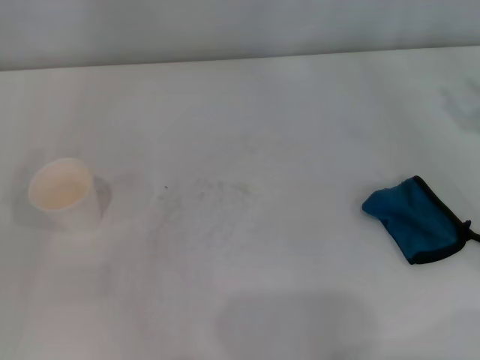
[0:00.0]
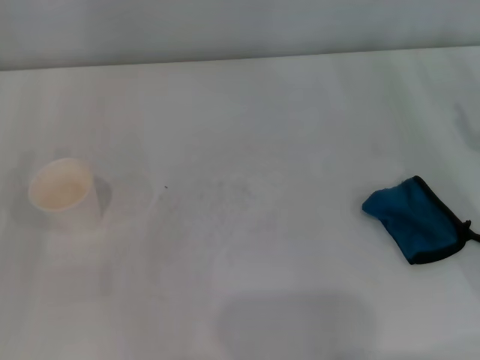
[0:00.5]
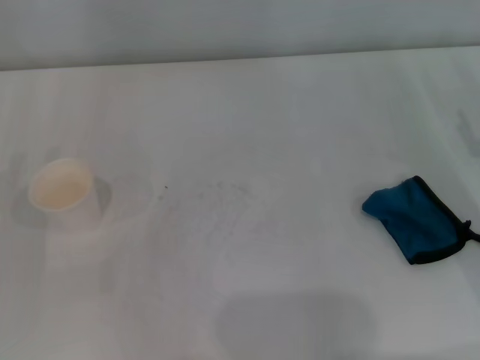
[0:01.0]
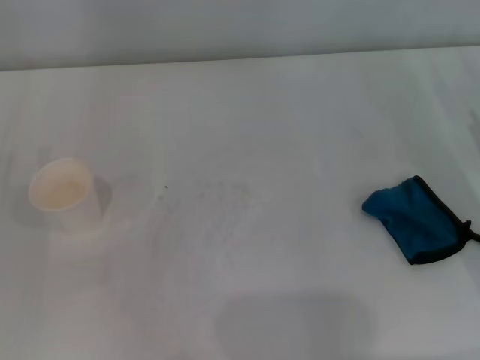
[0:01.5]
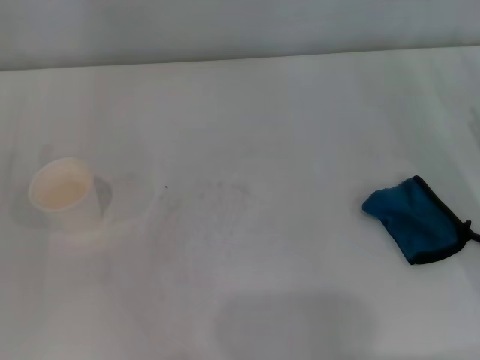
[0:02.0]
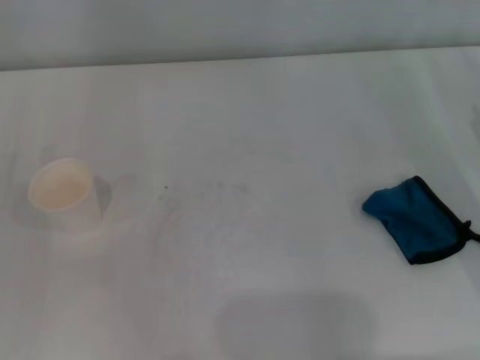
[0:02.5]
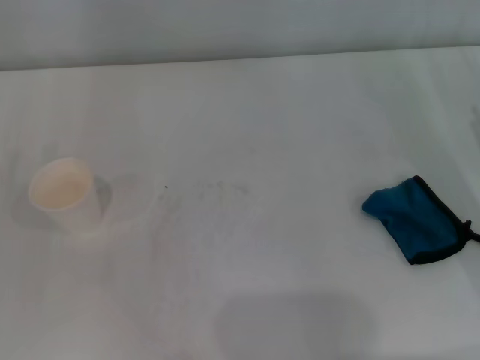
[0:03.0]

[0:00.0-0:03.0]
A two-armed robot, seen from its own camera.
0:01.5 to 0:03.0: Both grippers stay put.

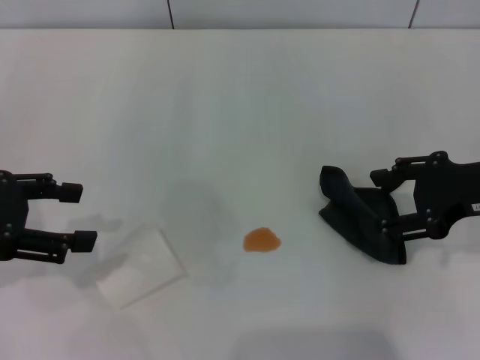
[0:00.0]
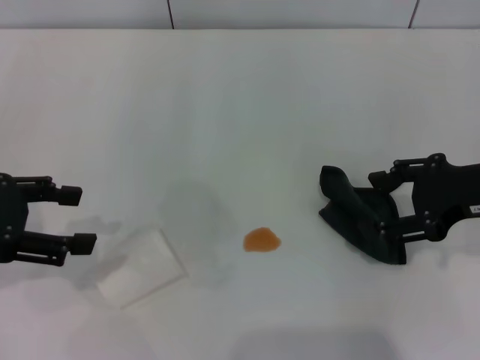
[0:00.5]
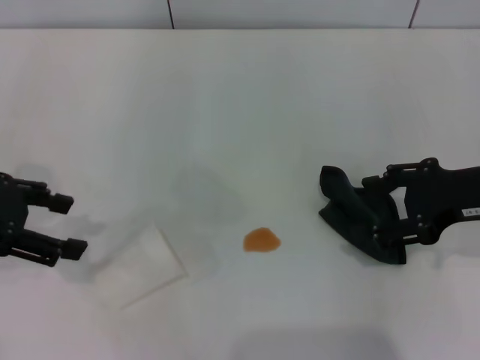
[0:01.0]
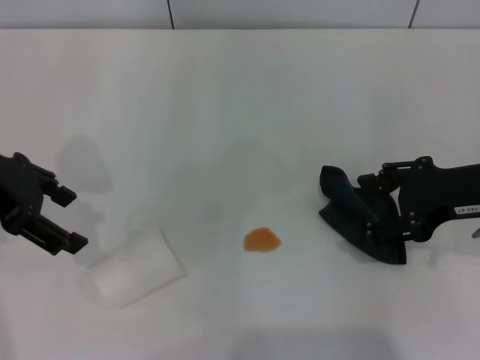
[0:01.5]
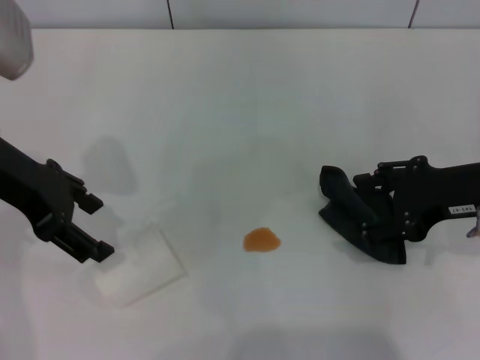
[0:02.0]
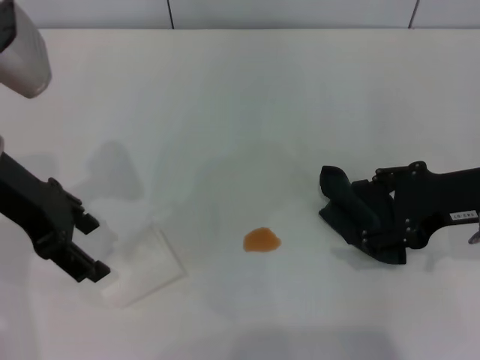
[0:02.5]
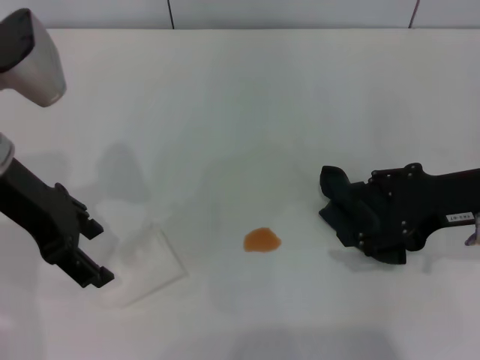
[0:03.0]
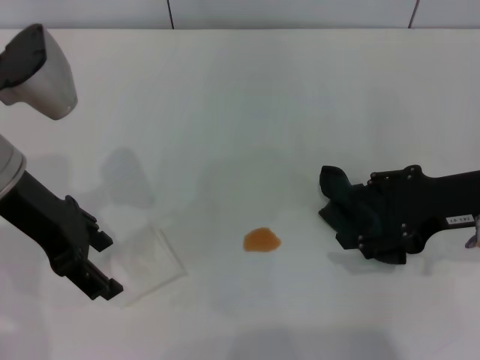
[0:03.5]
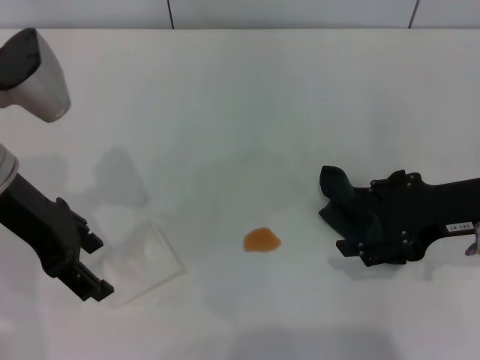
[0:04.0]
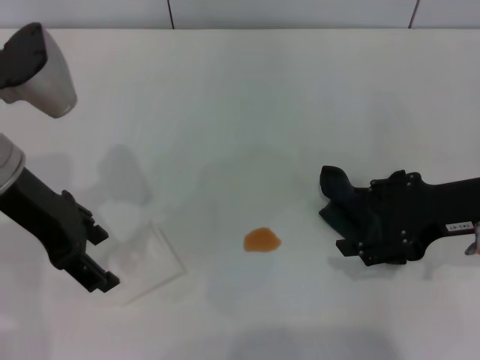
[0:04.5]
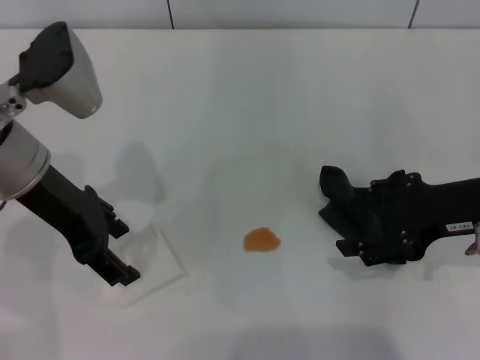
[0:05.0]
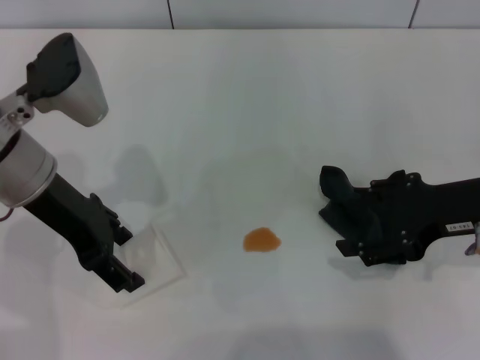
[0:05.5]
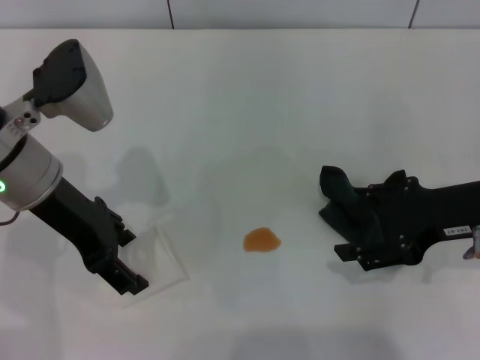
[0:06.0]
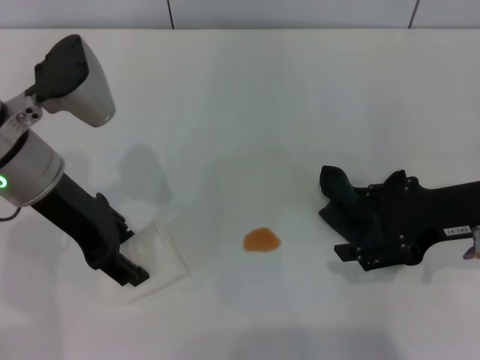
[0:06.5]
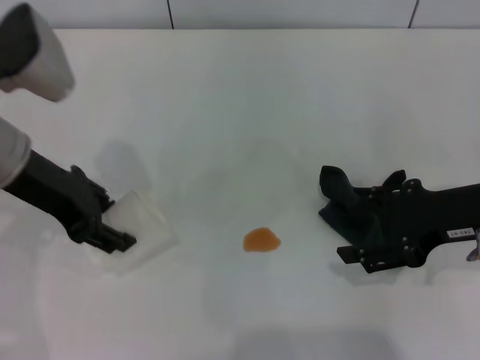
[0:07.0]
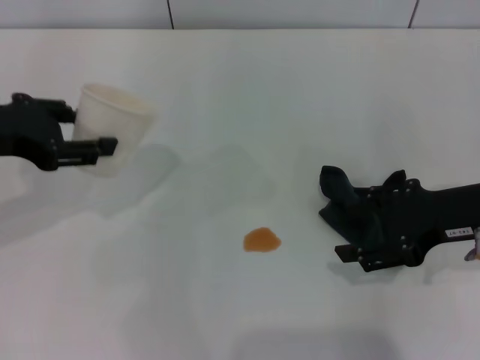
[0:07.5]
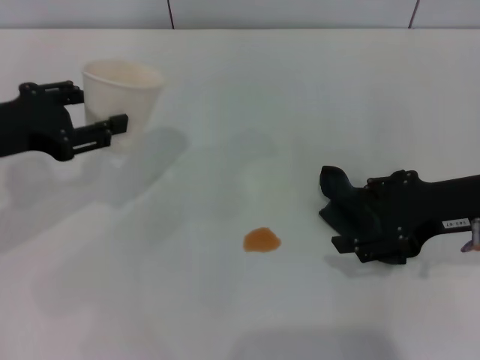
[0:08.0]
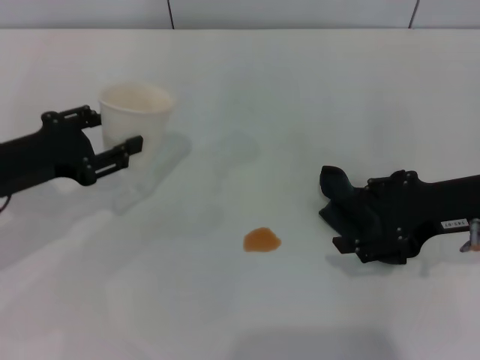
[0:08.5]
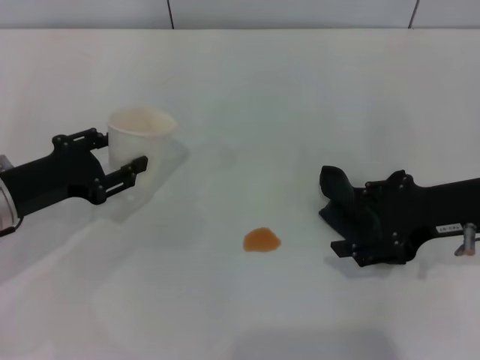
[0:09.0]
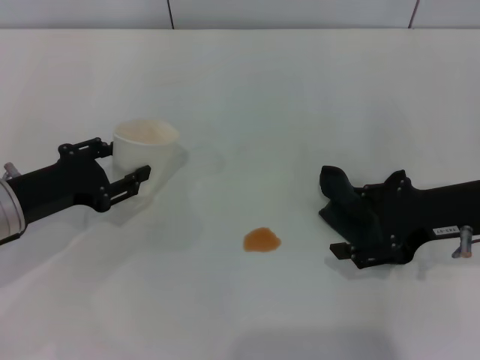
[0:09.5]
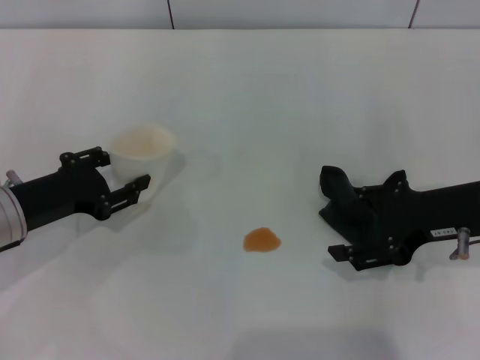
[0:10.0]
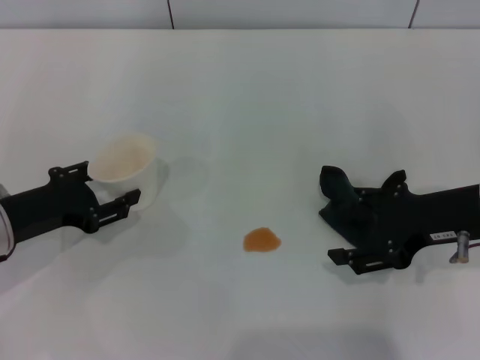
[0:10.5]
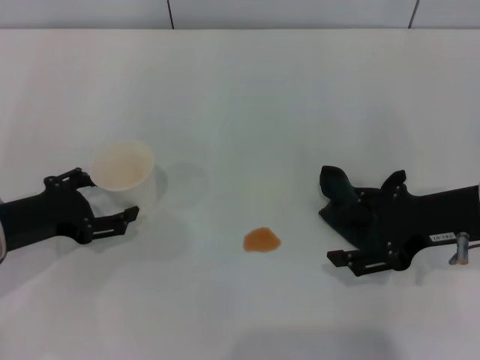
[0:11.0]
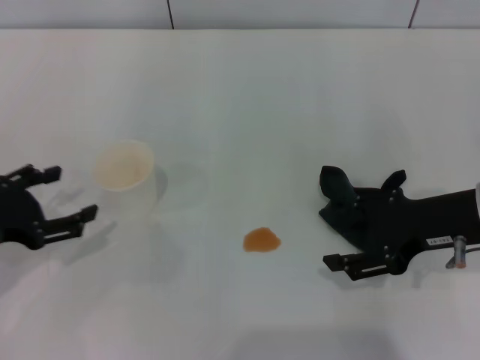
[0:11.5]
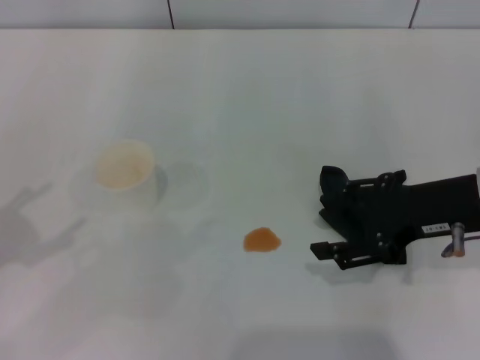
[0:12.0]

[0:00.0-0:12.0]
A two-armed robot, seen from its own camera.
Step, 0:00.0 to 0:06.5: Grasp the paper cup with the left gripper.
Step, 0:07.0 to 0:10.5: Stand the paper cup upright with the left gripper.
0:00.0 to 0:02.0: The left gripper moves to the right and forward, some 10 cm.
0:02.0 to 0:04.0: The grippers stay close to where they were, moving slightly.
0:04.0 to 0:06.0: There are only small adjustments of the grippers.
0:06.0 to 0:08.0: The left gripper is displaced to the left by approximately 10 cm, and closes.
0:08.0 to 0:10.0: The left gripper is displaced downward by approximately 10 cm.
0:10.0 to 0:12.0: The left gripper moves upward, to the left and backward, approximately 20 cm, and opens up.

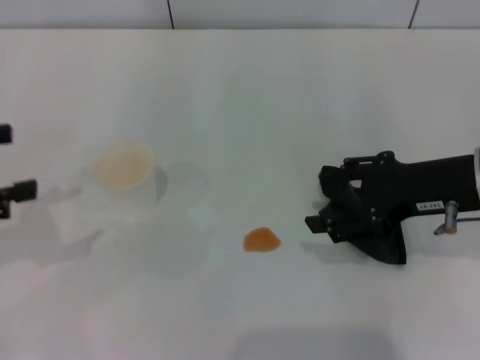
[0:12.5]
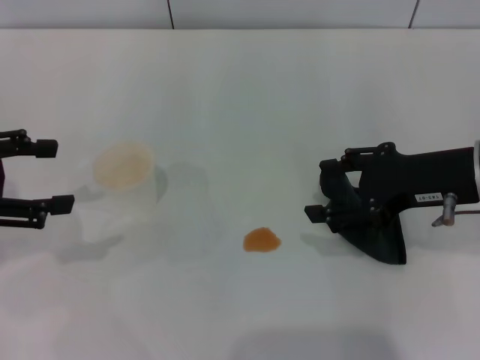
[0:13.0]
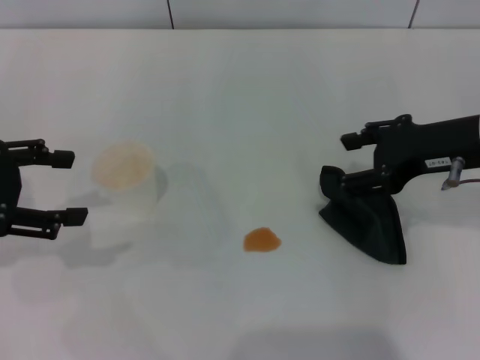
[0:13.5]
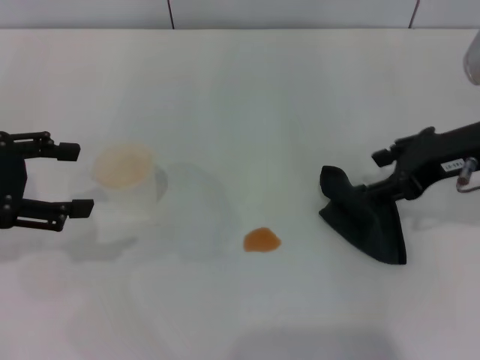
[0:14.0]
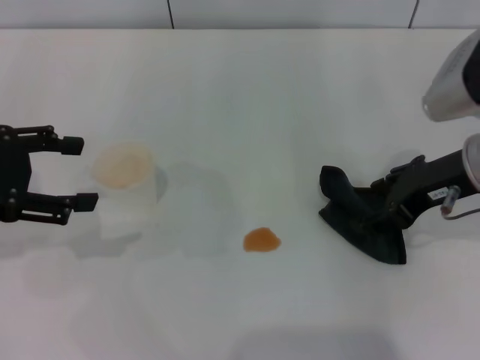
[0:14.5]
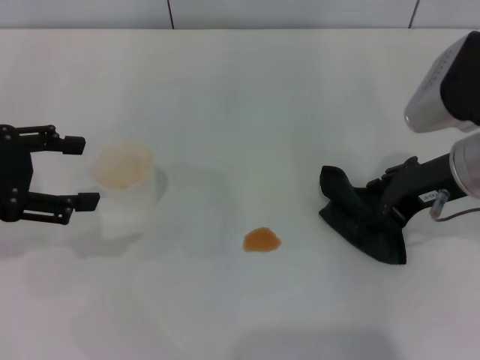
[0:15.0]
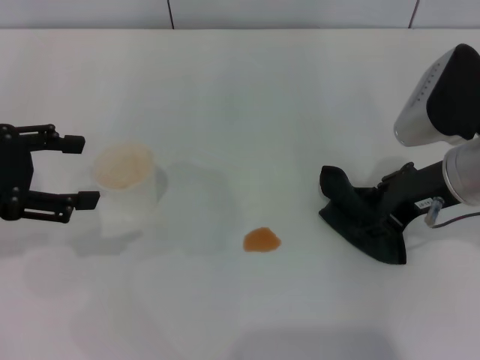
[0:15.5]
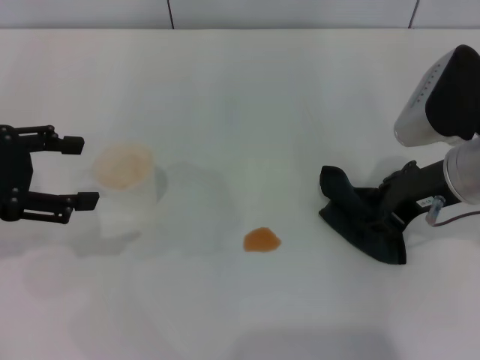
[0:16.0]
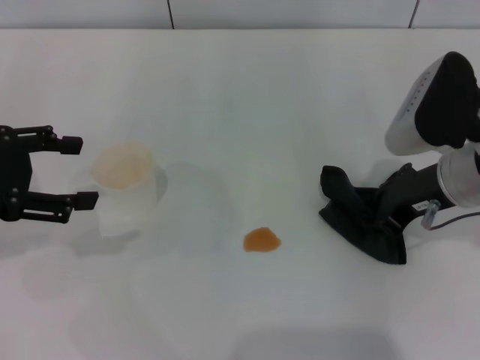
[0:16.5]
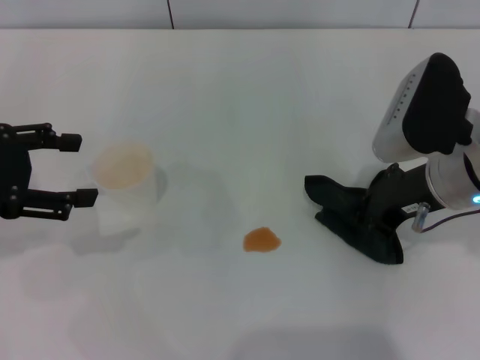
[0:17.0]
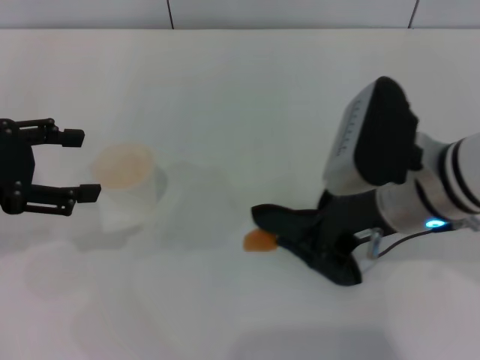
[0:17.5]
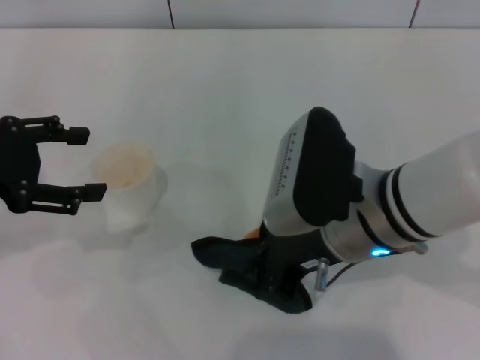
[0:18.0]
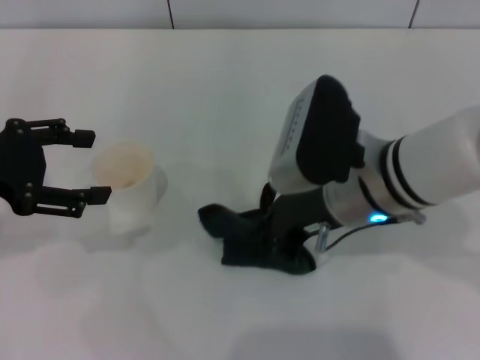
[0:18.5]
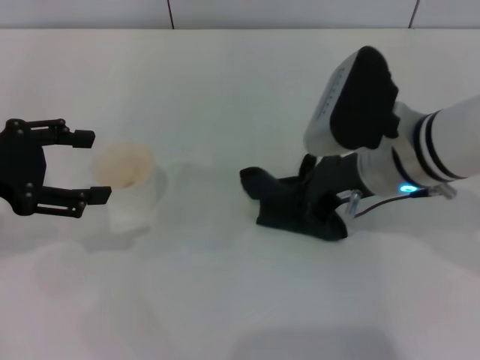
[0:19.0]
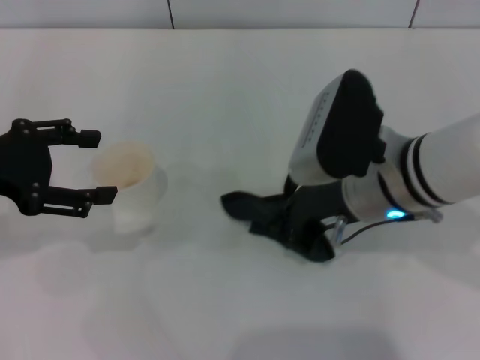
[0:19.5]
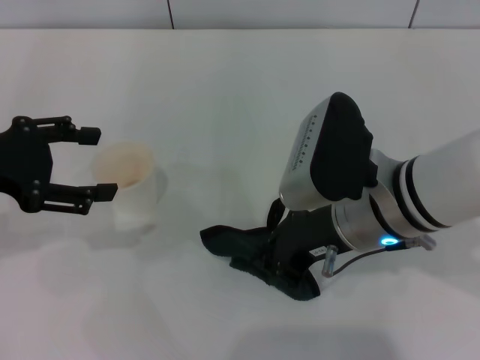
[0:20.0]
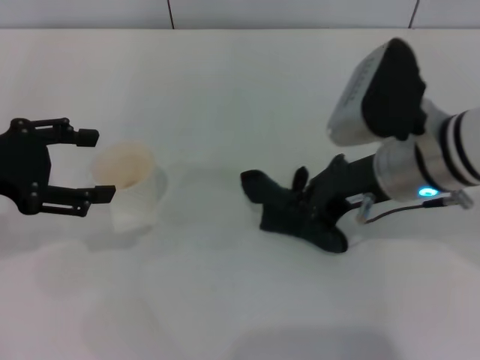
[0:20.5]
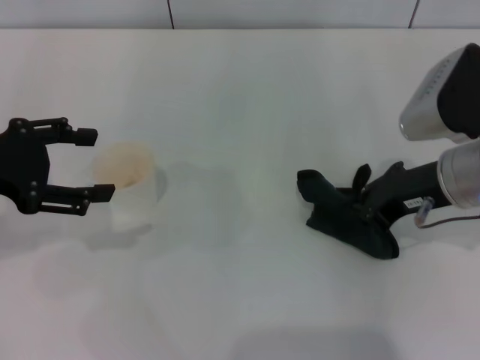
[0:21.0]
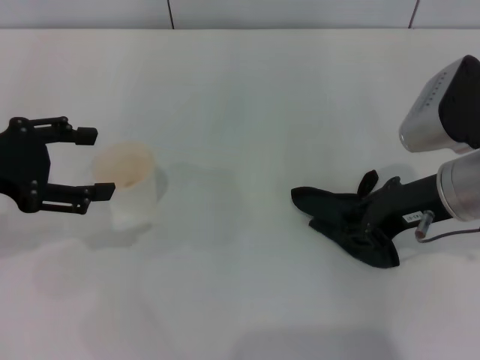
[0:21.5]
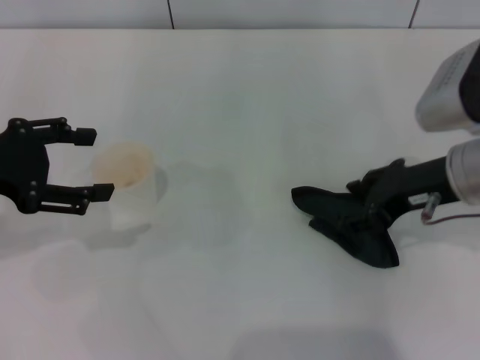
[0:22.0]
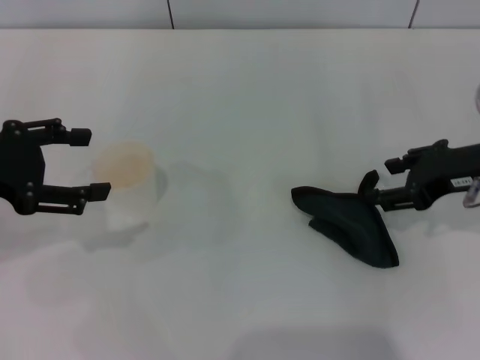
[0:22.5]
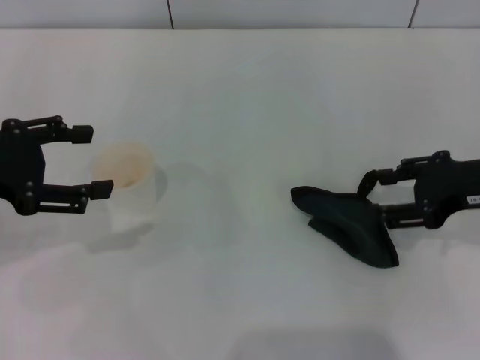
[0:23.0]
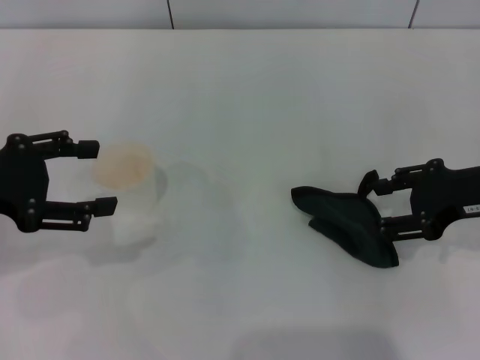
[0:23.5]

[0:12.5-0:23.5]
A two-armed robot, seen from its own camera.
Step, 0:12.5 to 0:16.5: Grasp the rag with the right gripper.
Step, 0:17.0 to 0:21.5: Wipe the stains off the table with the right gripper.
0:12.5 to 0:14.5: The left gripper ends up about 5 cm from where it was.
0:14.5 to 0:16.0: The right gripper closes.
0:16.0 to 0:18.0: The right gripper goes some 10 cm to the left, and closes its fingers.
0:20.0 to 0:21.5: The right gripper moves to the right, approximately 10 cm.
0:21.5 to 0:23.5: The right gripper travels to the right by roughly 5 cm, and opens up.
